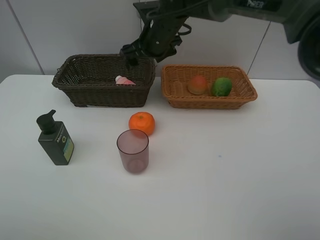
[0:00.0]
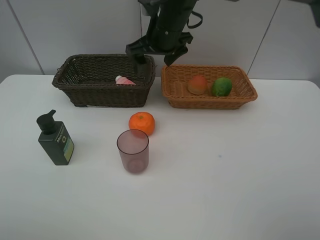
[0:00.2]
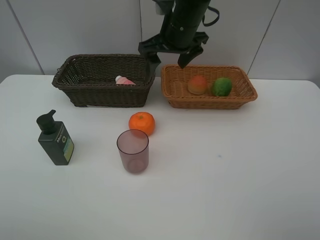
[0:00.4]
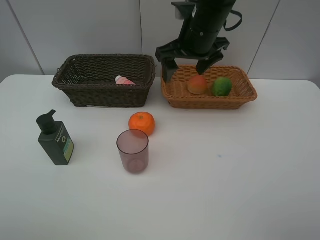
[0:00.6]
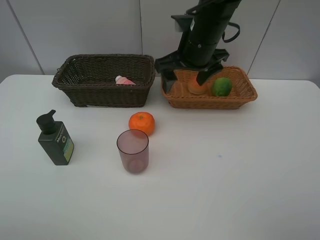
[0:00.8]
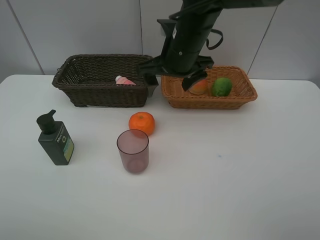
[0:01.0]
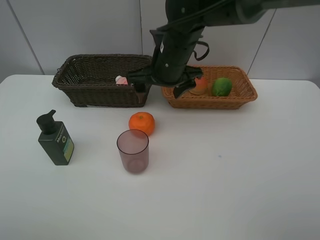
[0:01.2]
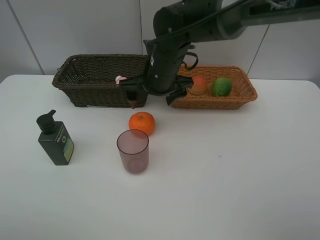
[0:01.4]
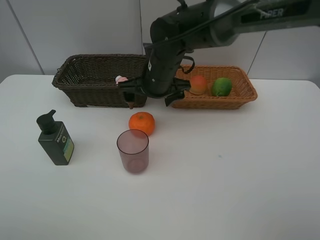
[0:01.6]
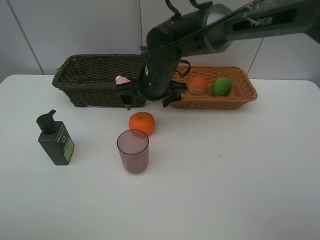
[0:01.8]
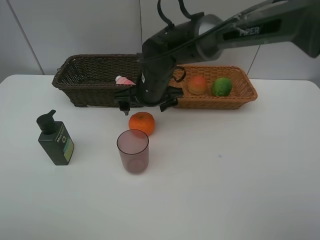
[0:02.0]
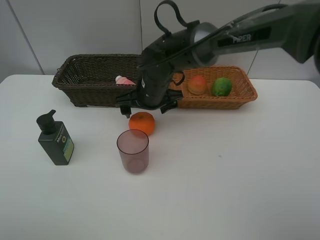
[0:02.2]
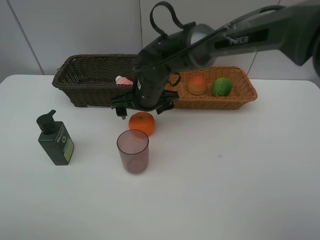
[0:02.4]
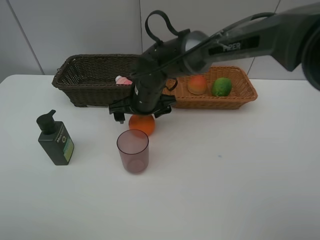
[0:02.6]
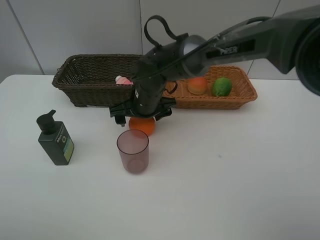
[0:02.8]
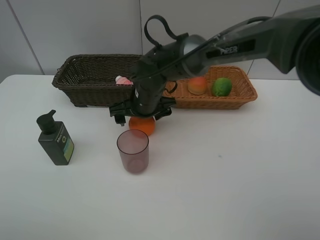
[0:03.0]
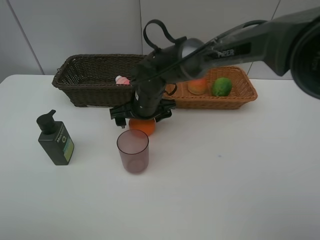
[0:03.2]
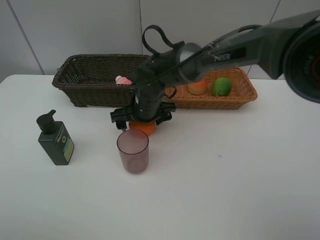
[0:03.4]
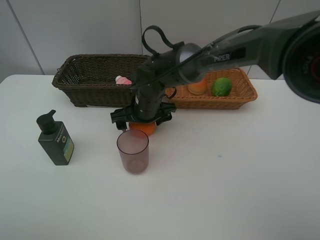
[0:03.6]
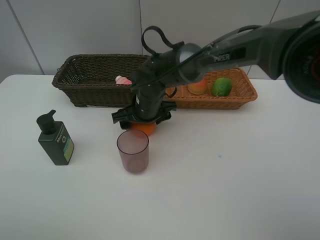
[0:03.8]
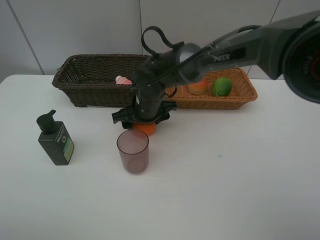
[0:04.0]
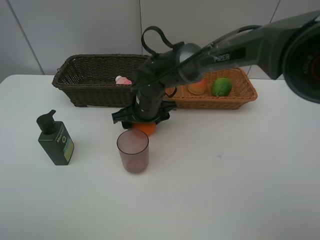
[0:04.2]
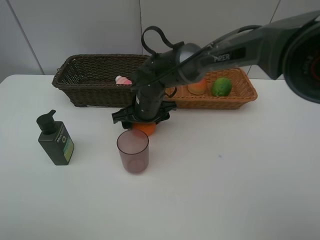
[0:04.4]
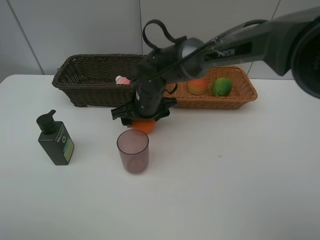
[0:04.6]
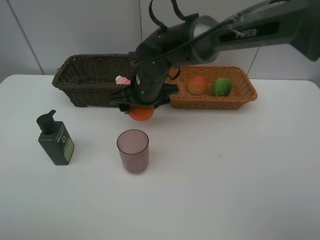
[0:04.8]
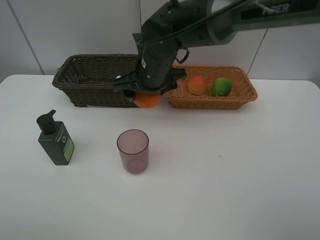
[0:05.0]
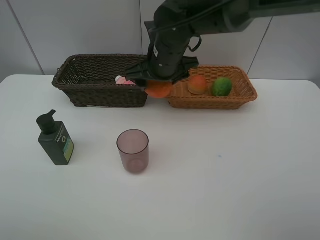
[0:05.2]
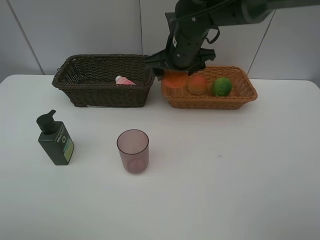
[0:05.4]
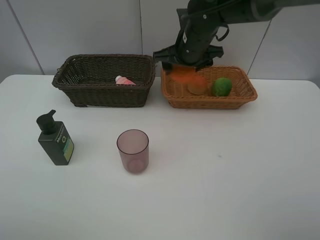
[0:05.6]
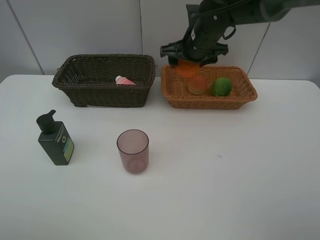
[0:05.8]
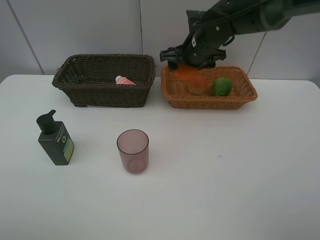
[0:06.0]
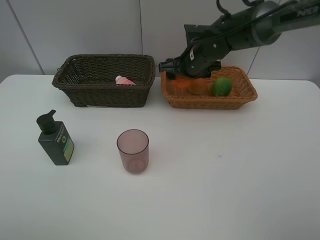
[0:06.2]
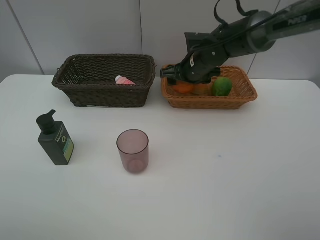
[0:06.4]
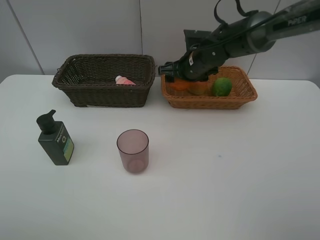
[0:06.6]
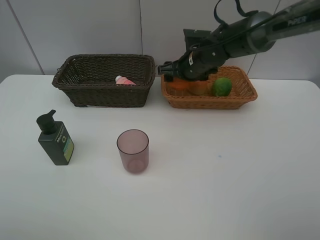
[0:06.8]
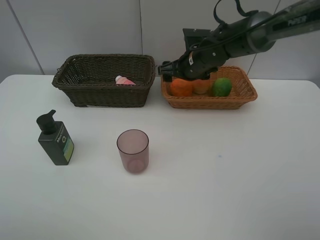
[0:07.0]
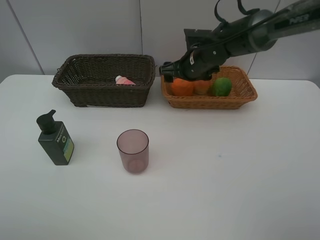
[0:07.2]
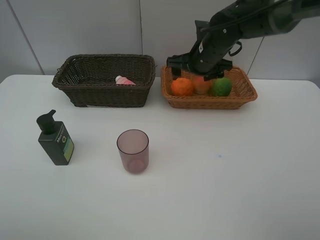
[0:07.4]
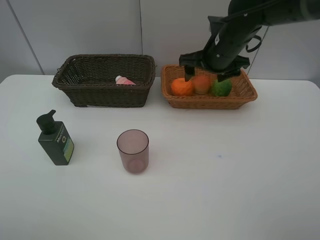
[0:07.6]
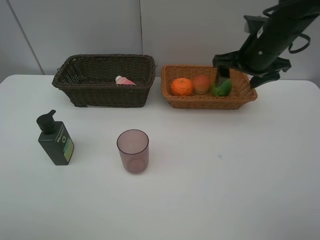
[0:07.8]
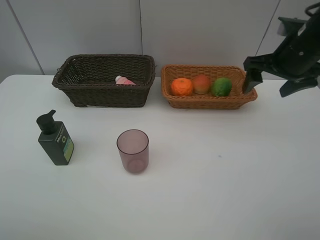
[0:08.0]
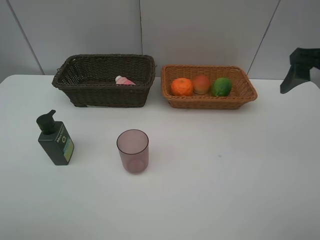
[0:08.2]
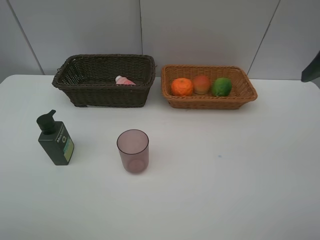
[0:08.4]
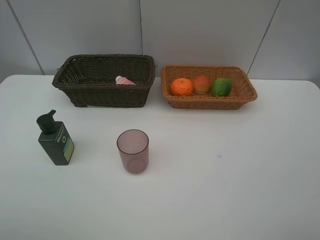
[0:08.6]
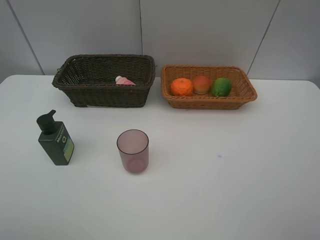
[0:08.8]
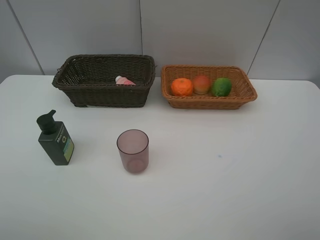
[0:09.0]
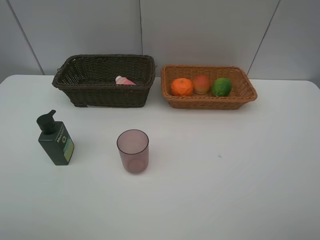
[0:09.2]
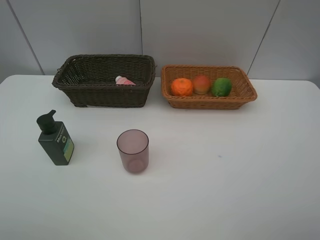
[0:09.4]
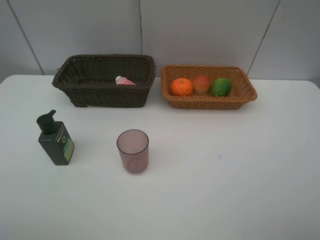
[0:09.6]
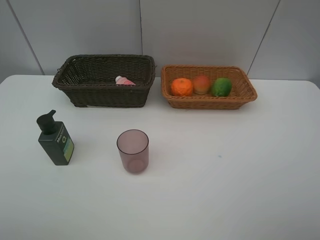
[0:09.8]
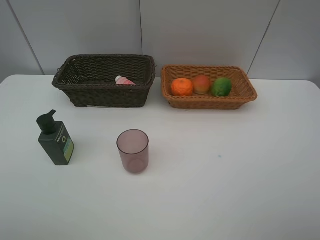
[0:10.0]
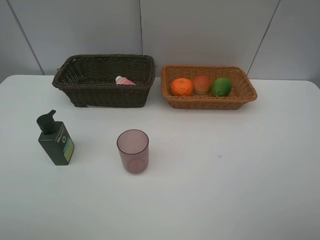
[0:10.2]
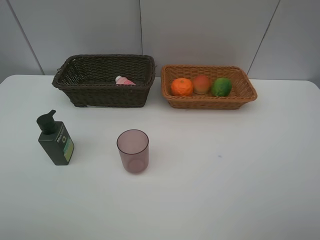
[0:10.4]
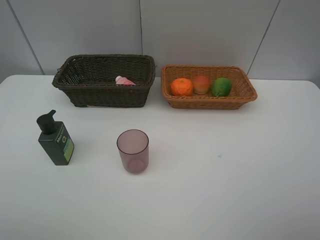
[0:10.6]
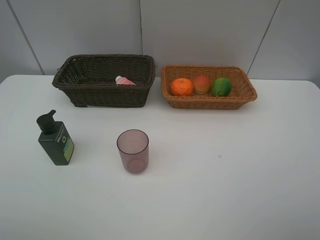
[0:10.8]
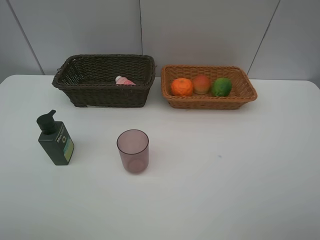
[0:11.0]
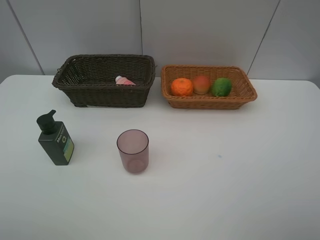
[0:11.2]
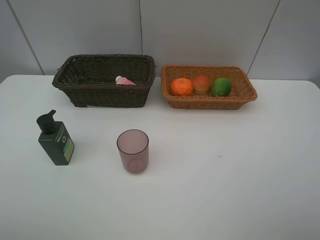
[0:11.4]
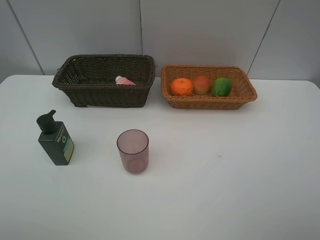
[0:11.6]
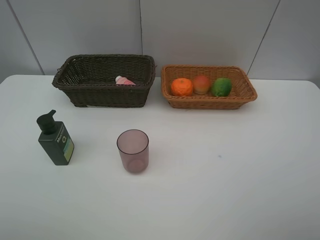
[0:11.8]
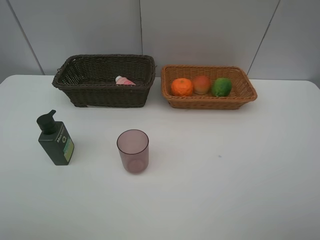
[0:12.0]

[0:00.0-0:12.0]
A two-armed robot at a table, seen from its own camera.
Task of the whole recording: place multiple objects separately in different baskets.
0:00.0 to 0:01.6: The right gripper goes some 10 cm backward and downward.
0:01.6 to 0:03.0: The right gripper is displaced downward by about 5 cm.
0:03.0 to 0:04.4: The right gripper closes its fingers.
0:04.4 to 0:06.0: The right gripper heads to the right, upward and forward, covering roughly 15 cm.
0:06.0 to 0:07.6: The right gripper is displaced to the right by about 5 cm.
0:07.6 to 0:09.0: The right gripper heads backward, to the right and upward, covering approximately 40 cm.
0:10.4 to 0:12.0: Both grippers stay about where they are.

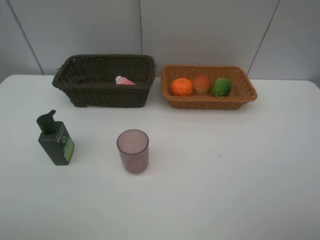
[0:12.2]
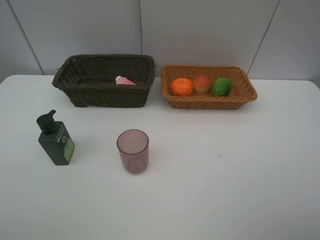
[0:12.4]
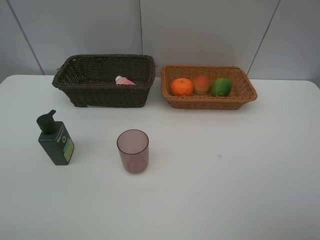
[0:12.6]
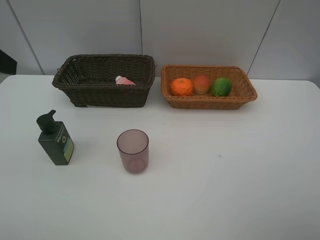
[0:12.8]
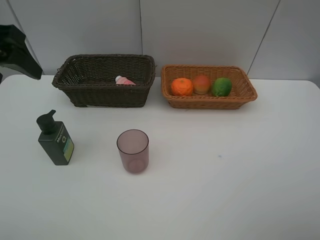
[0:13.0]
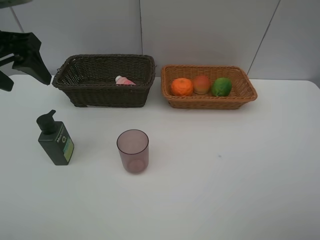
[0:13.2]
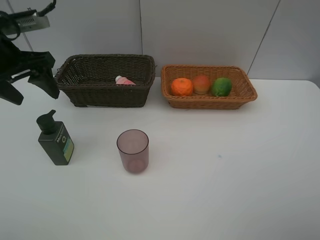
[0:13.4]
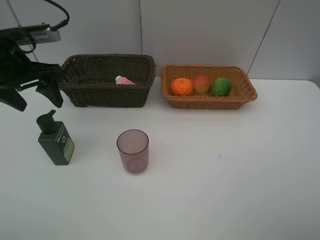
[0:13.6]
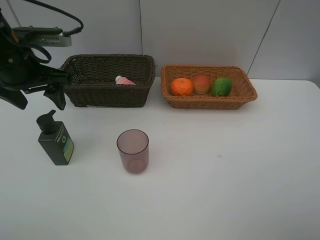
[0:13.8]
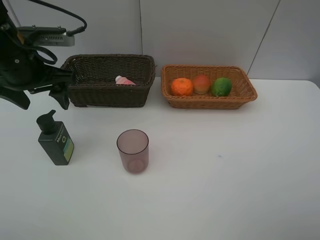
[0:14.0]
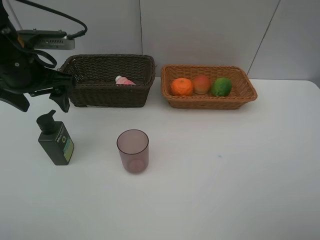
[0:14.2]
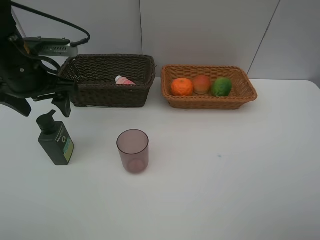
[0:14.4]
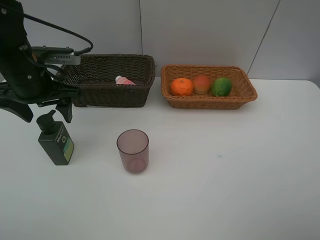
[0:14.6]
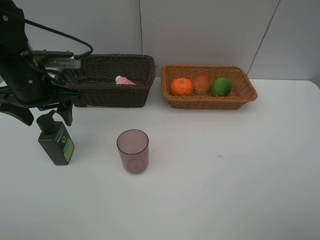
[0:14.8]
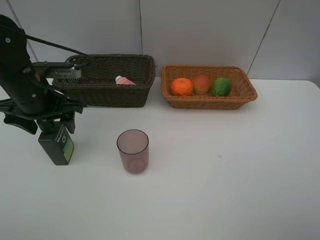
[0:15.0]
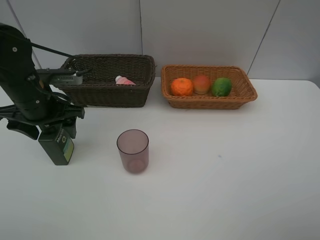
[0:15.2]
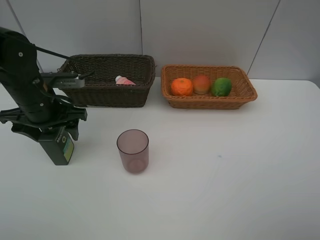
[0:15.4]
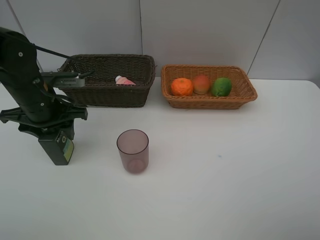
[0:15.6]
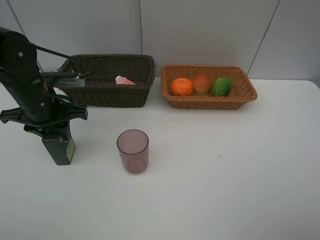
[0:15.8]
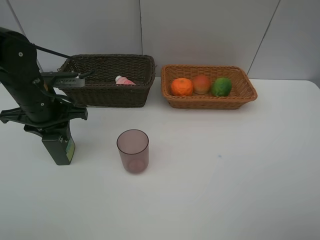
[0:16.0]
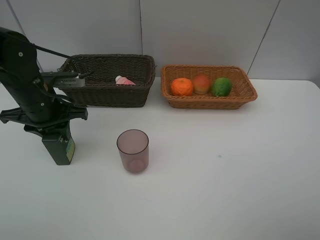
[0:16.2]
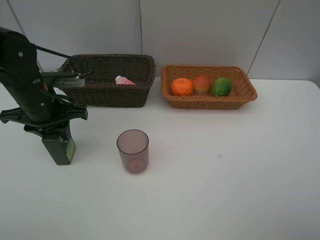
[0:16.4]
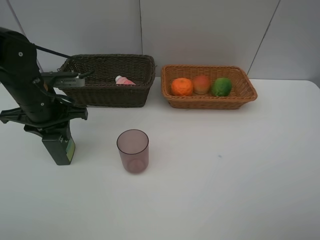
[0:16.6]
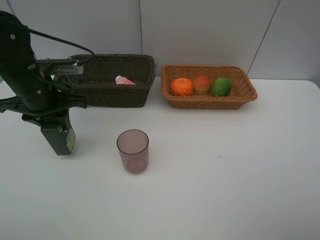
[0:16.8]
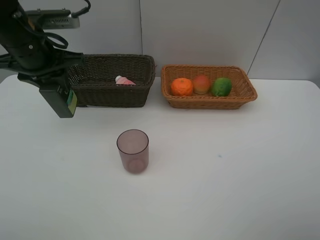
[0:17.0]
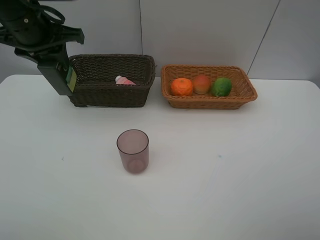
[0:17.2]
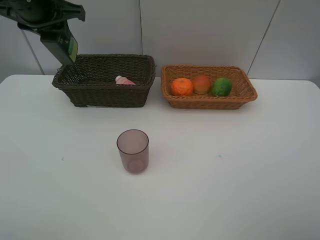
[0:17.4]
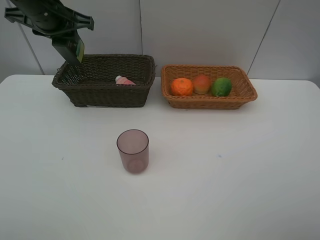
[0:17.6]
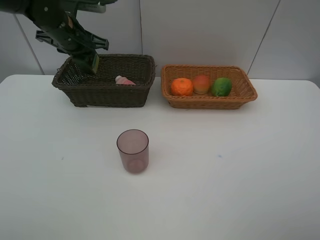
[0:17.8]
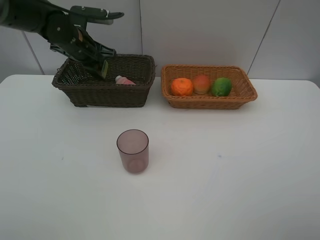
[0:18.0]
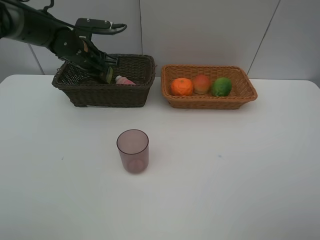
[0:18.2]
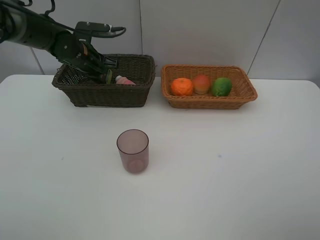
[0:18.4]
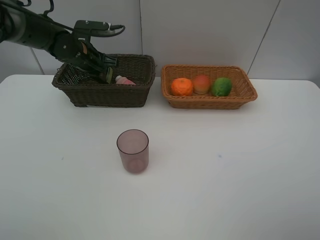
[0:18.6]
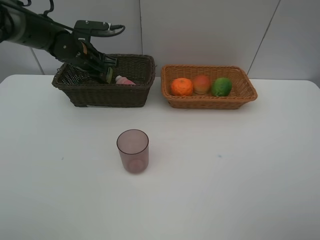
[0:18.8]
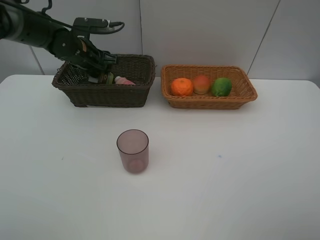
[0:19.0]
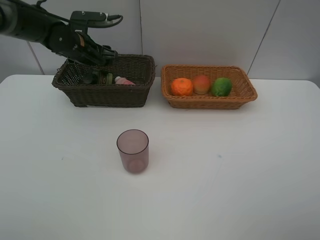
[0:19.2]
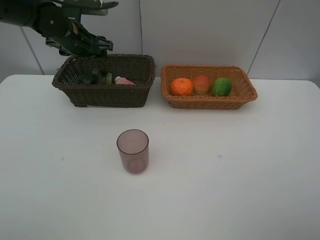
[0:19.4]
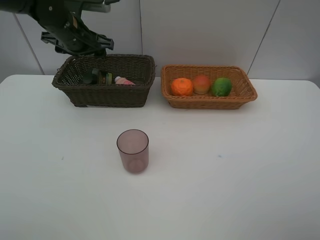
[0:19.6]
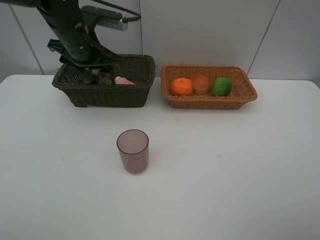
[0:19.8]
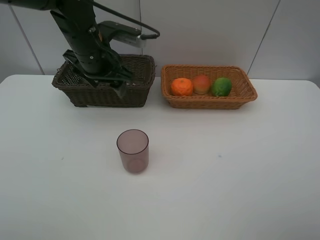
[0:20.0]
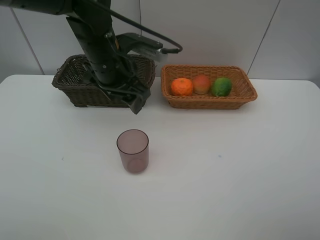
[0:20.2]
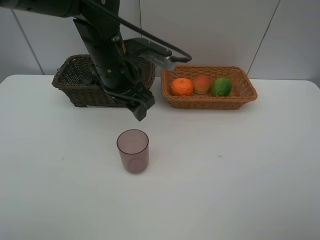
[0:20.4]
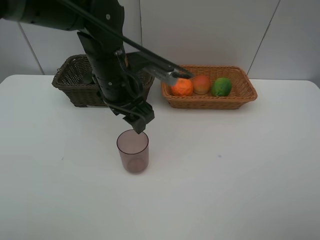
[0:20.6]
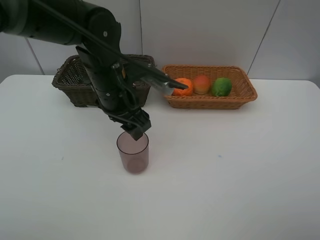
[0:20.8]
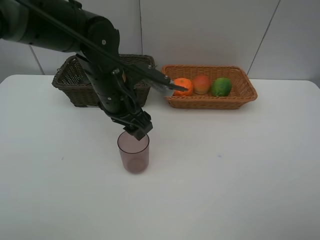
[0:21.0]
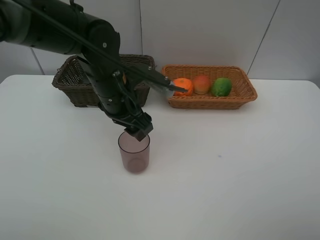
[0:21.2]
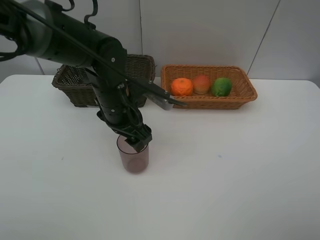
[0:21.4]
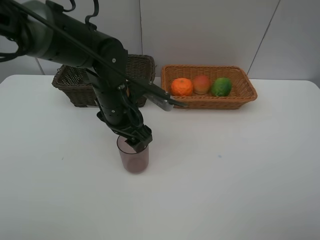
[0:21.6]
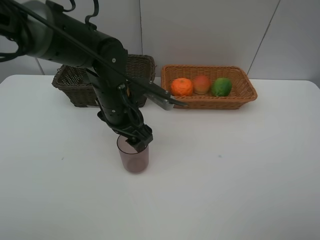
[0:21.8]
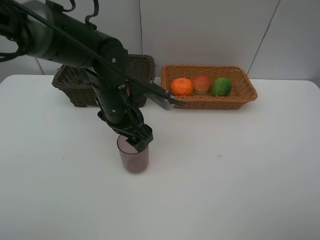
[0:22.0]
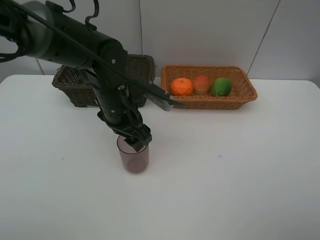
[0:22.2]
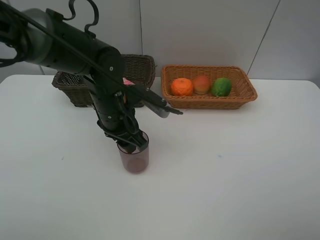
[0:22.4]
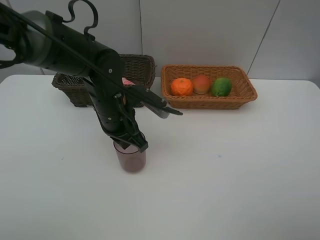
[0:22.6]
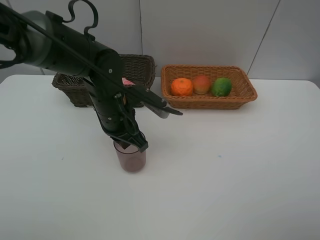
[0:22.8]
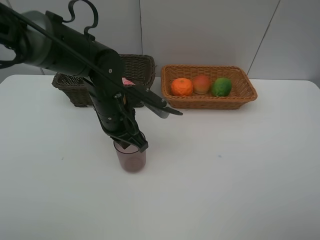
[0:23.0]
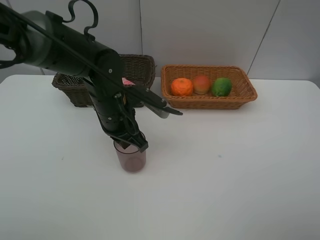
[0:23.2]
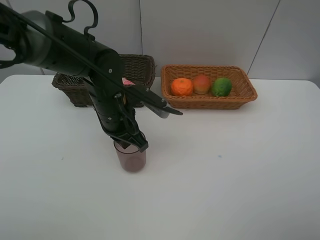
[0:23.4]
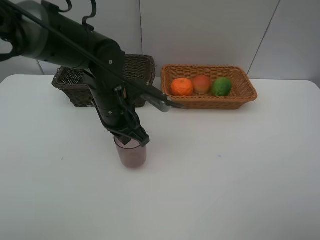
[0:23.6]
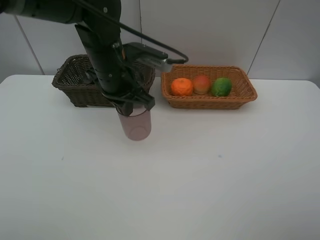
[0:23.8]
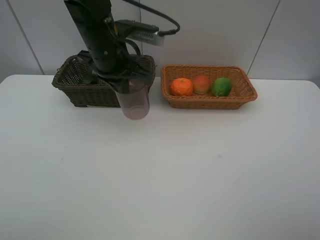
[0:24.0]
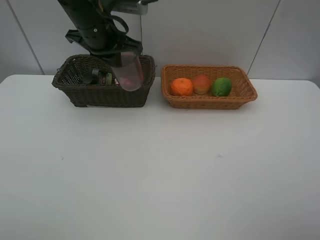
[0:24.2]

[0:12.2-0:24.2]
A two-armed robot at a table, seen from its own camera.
Task of the whole recording: place multiple objects separately in different baskets.
0:12.2 to 0:13.8: The left gripper goes roughly 25 cm forward.
0:13.8 to 0:15.2: The left gripper travels downward by about 10 cm.
0:15.2 to 0:16.6: The left gripper closes.
0:16.6 to 0:18.2: The left gripper is displaced forward by roughly 15 cm.
0:18.2 to 0:19.8: The left gripper goes approximately 10 cm backward and upward, and opens its fingers.
0:19.8 to 0:21.2: The left gripper moves backward, to the right and downward, roughly 10 cm.
0:21.2 to 0:22.6: The left gripper closes.
0:22.6 to 0:24.2: The left gripper is displaced upward and forward by about 15 cm.
